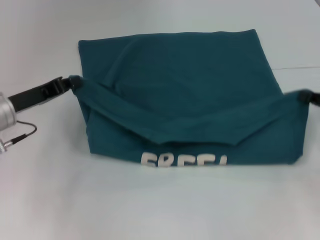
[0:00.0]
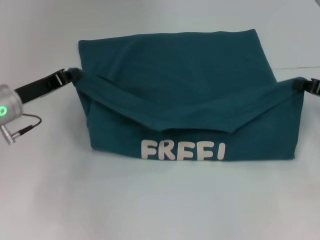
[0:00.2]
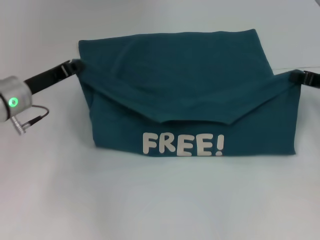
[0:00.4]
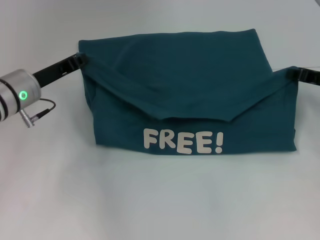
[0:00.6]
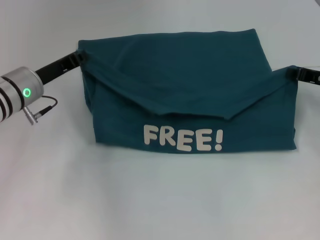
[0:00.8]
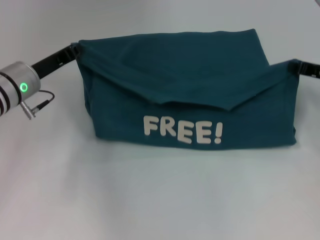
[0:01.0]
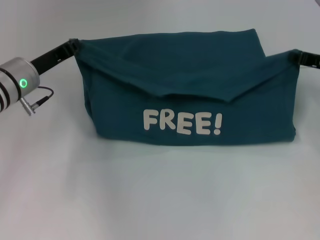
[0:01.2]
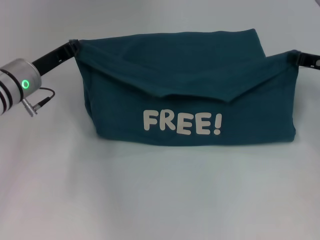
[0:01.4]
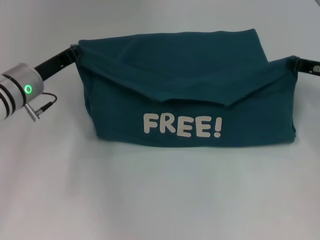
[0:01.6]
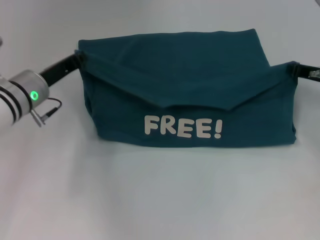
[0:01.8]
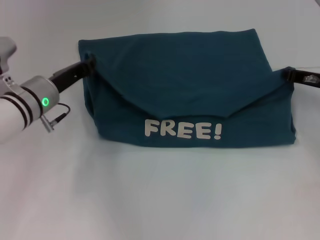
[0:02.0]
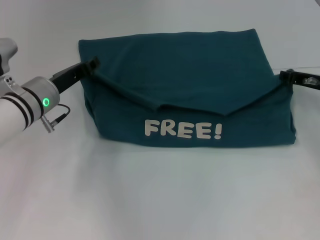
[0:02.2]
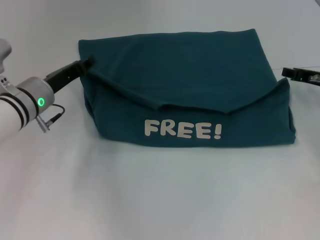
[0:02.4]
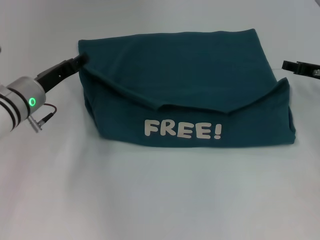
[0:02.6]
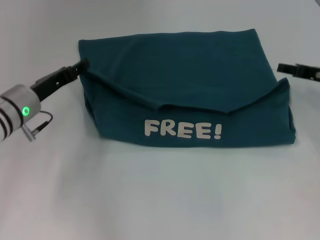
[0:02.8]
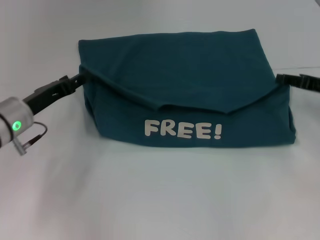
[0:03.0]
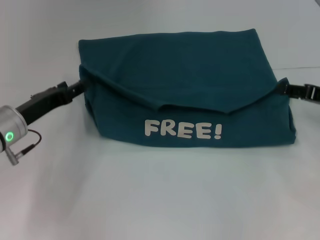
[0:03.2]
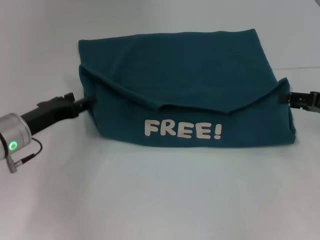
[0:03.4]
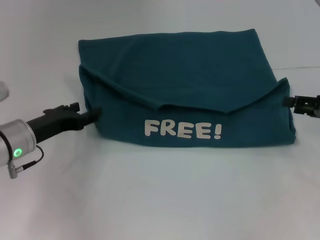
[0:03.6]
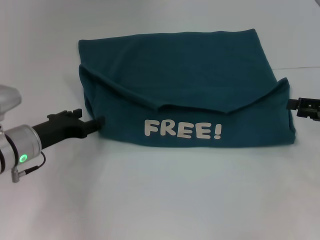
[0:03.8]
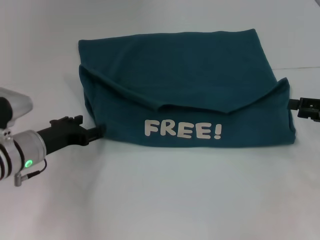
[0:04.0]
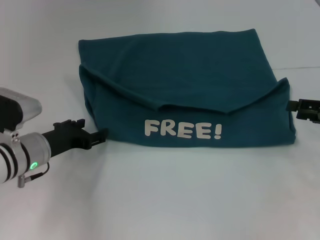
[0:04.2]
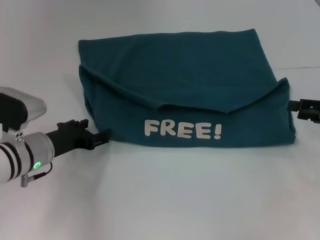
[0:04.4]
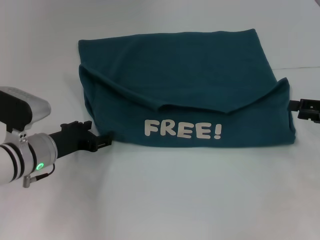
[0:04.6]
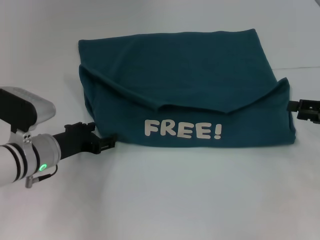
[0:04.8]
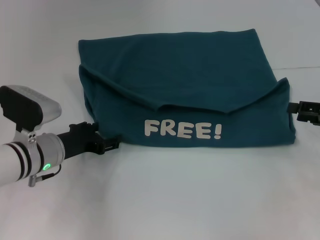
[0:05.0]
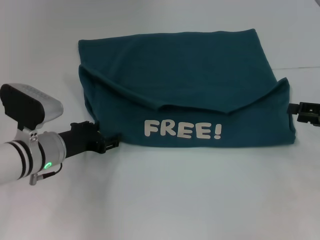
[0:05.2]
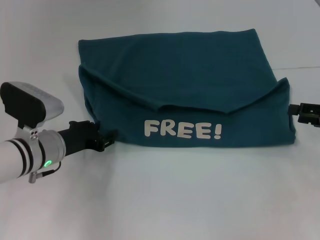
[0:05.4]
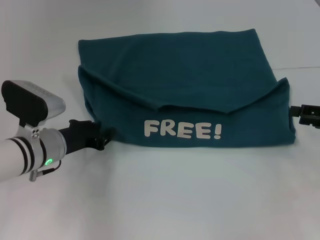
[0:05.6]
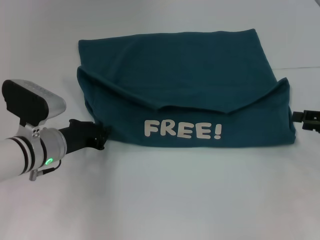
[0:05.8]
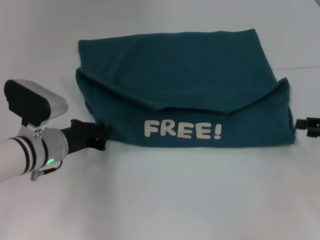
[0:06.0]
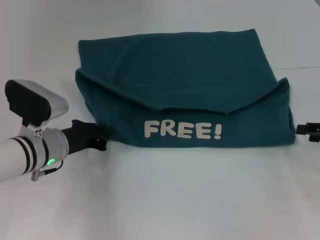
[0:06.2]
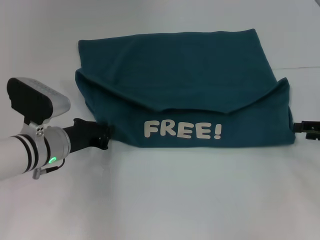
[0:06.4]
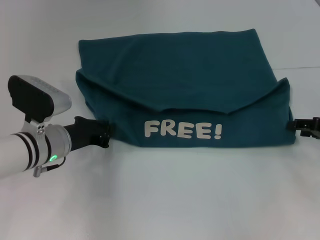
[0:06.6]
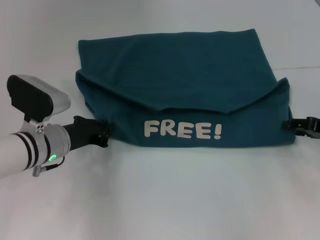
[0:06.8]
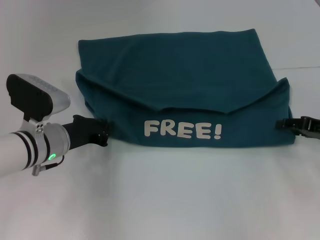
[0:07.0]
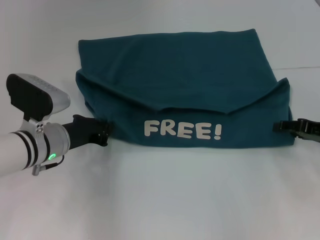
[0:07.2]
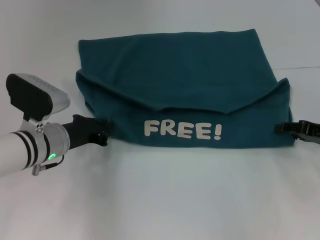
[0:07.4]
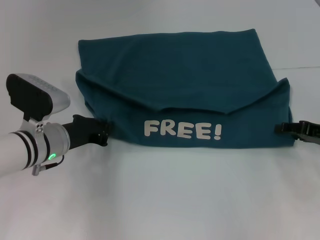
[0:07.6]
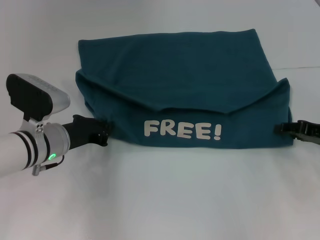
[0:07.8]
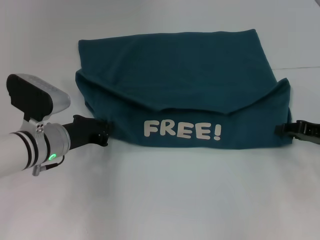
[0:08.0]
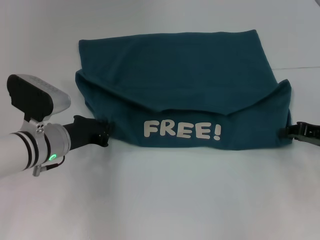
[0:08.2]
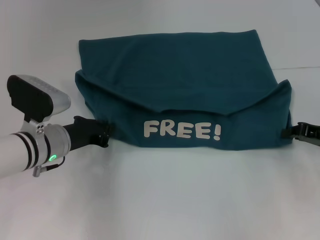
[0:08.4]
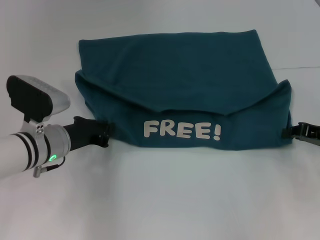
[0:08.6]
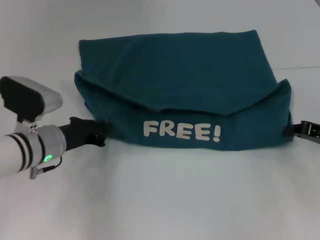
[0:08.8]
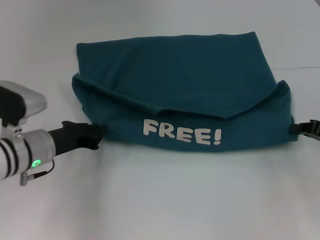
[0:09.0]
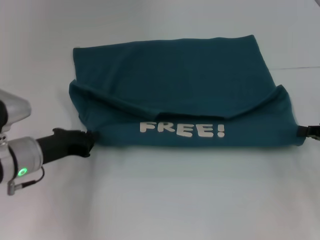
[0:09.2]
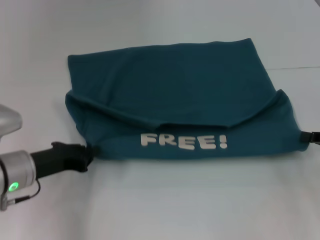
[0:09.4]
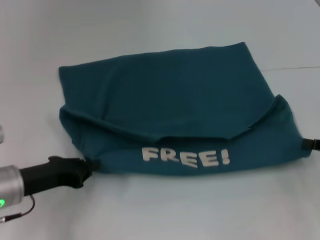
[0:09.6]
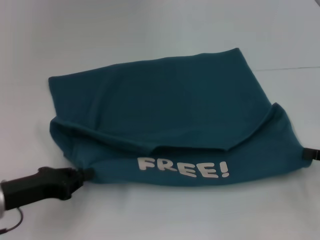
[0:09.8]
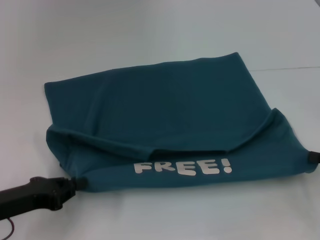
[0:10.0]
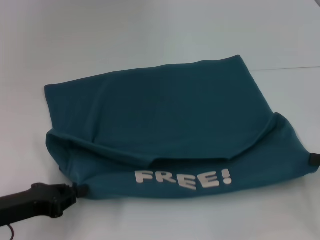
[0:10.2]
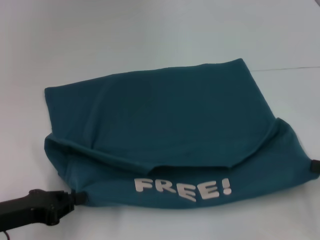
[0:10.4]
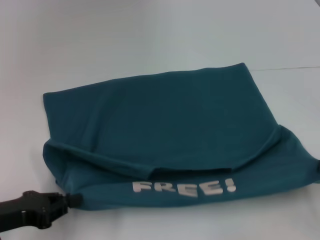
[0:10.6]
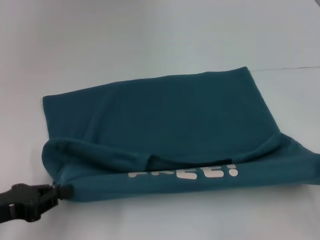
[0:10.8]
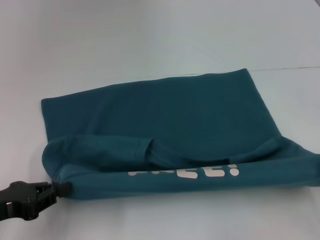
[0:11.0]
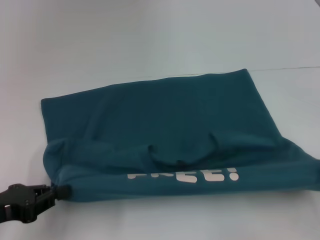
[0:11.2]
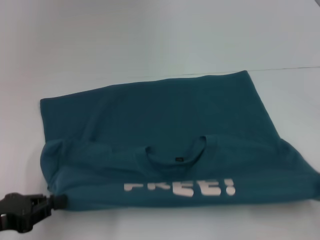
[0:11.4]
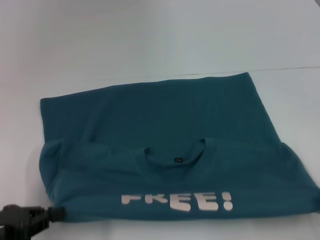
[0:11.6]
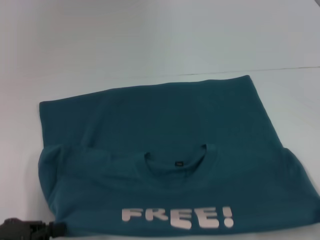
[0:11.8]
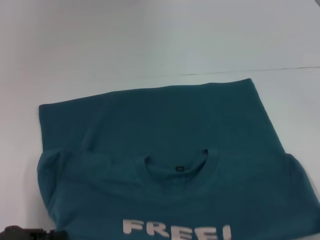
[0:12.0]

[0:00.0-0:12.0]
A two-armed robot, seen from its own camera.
Step, 0:00.0 to 0:02.6: Fold the clothes to the left.
Step, 0:00.0 to 0:02.6: Fold the clothes to the right.
Step, 0:02.8 to 0:10.0: Pull the clothes with your left hand.
Step, 0:02.8 to 0:10.0: Pull the clothes with your right hand.
0:00.0 to 0:01.6: The left gripper changes place by approximately 5 cm; the right gripper goes about 10 cm forward.
0:01.6 to 0:03.0: The right gripper opens. Meanwhile the left gripper moves roughly 5 cm, and opens.
0:03.0 to 0:04.4: The right gripper is displaced backward by approximately 5 cm.
0:04.4 to 0:06.0: The left gripper closes up.
0:06.0 to 0:07.6: The right gripper changes place by roughly 5 cm.
0:07.6 to 0:09.0: The right gripper closes.
0:09.0 to 0:10.4: The right gripper is displaced backward by roughly 10 cm, while the left gripper moves backward and to the left, some 15 cm.
0:10.4 to 0:12.0: The right gripper heads backward, covering approximately 5 cm; the left gripper moves some 5 cm.

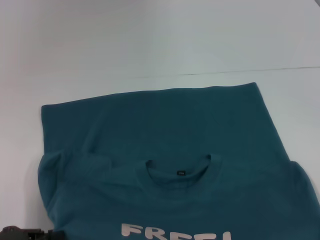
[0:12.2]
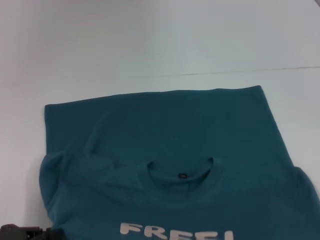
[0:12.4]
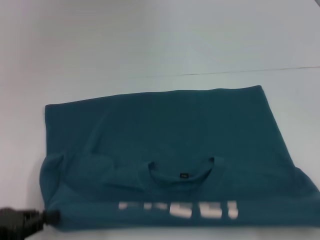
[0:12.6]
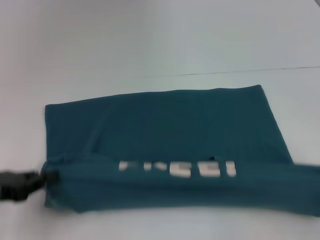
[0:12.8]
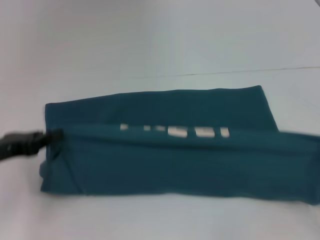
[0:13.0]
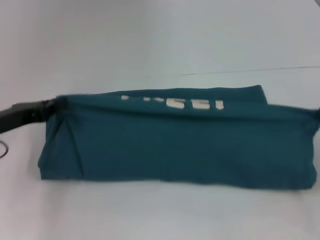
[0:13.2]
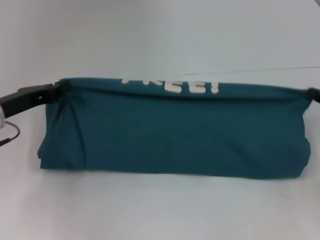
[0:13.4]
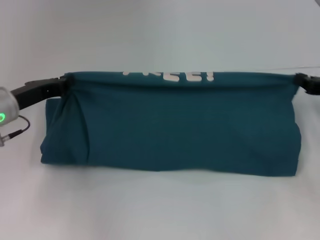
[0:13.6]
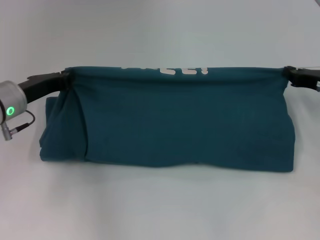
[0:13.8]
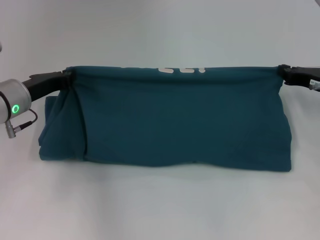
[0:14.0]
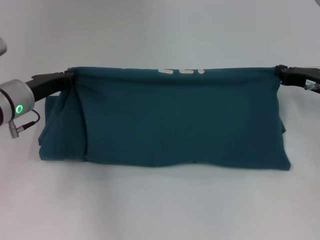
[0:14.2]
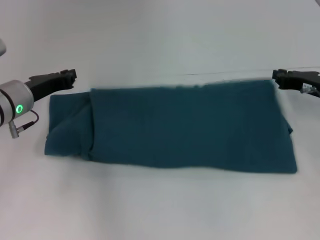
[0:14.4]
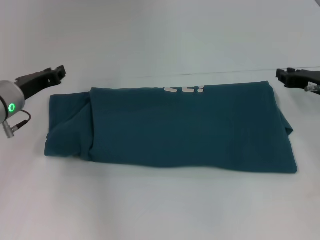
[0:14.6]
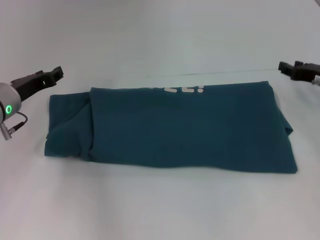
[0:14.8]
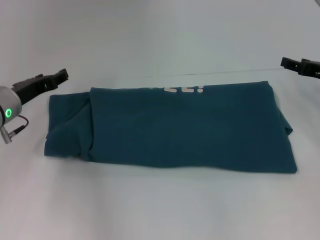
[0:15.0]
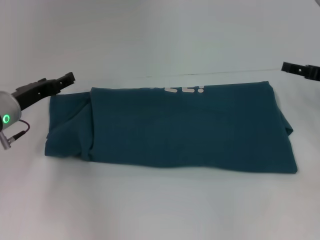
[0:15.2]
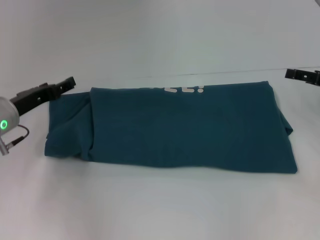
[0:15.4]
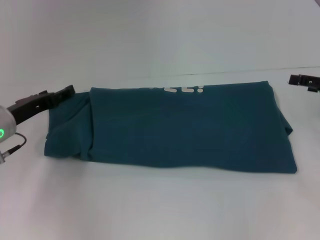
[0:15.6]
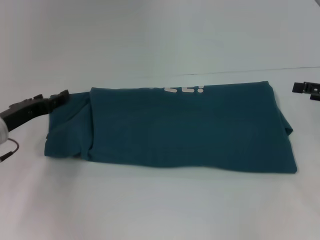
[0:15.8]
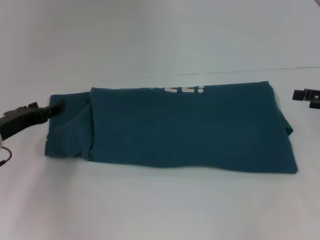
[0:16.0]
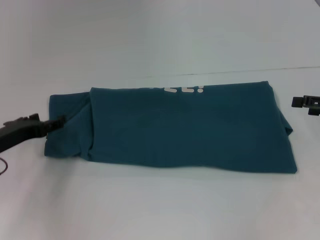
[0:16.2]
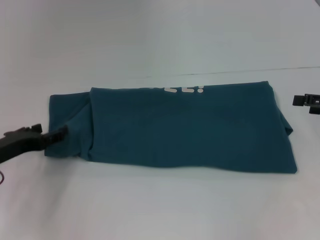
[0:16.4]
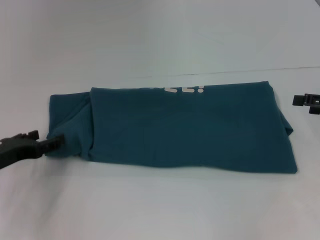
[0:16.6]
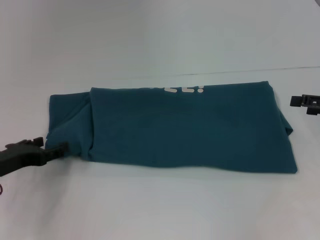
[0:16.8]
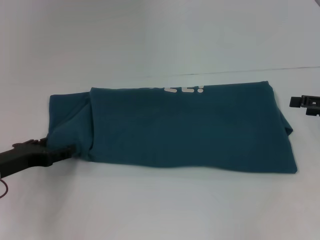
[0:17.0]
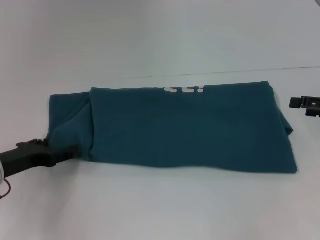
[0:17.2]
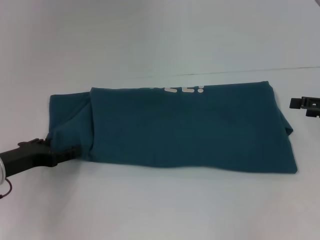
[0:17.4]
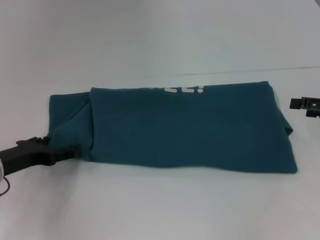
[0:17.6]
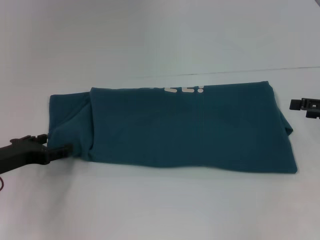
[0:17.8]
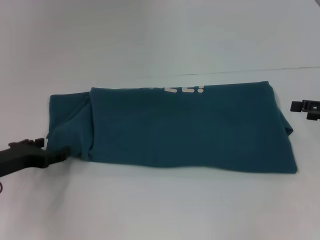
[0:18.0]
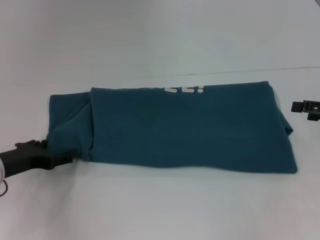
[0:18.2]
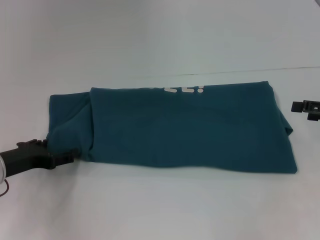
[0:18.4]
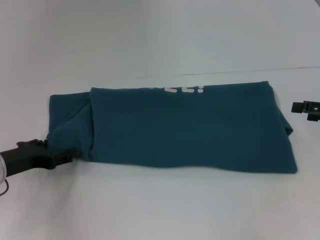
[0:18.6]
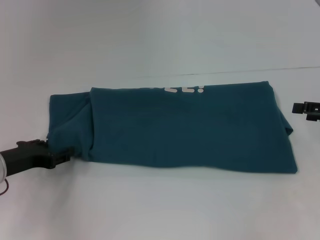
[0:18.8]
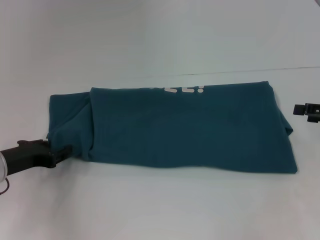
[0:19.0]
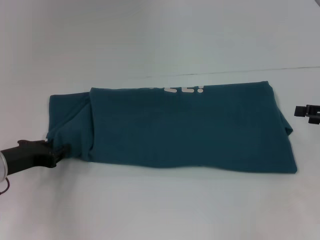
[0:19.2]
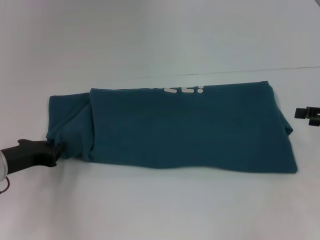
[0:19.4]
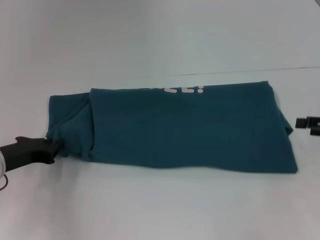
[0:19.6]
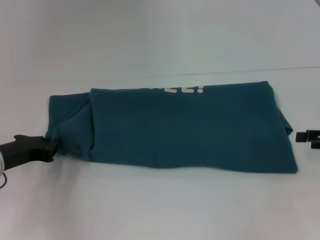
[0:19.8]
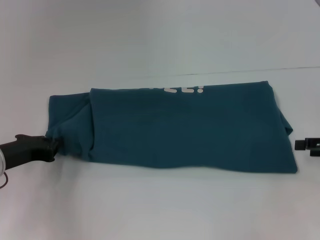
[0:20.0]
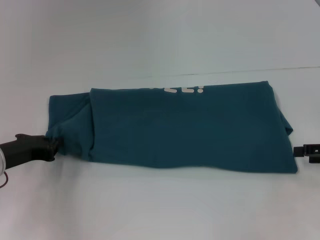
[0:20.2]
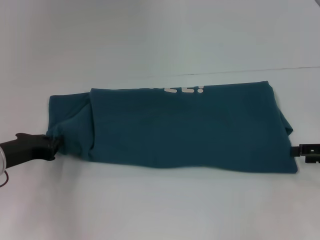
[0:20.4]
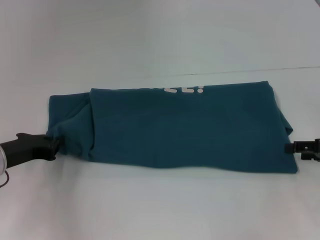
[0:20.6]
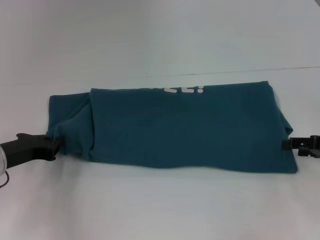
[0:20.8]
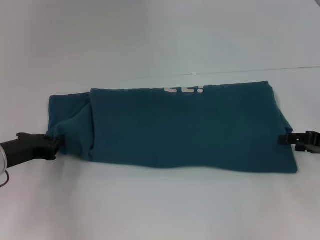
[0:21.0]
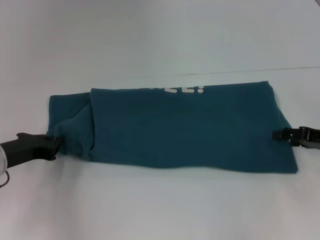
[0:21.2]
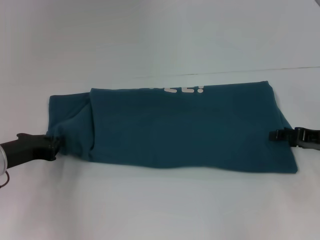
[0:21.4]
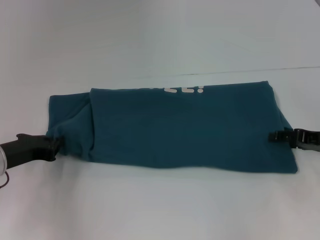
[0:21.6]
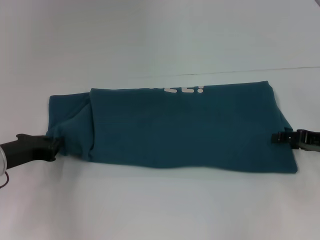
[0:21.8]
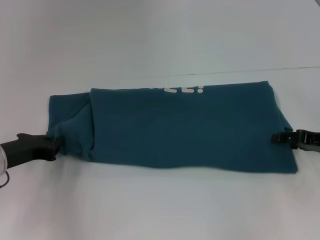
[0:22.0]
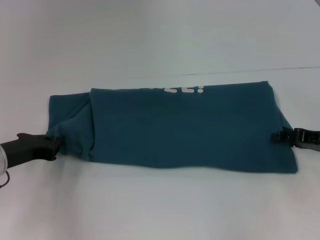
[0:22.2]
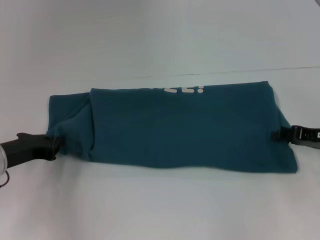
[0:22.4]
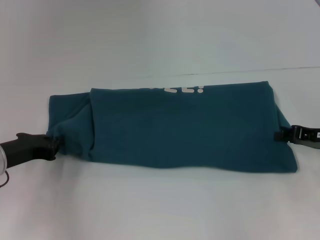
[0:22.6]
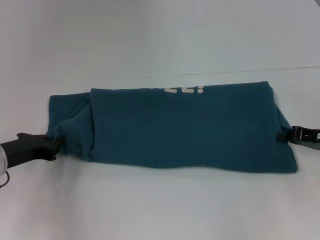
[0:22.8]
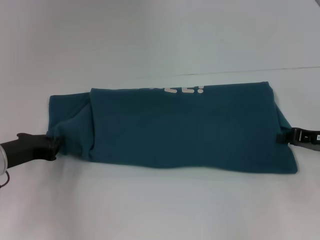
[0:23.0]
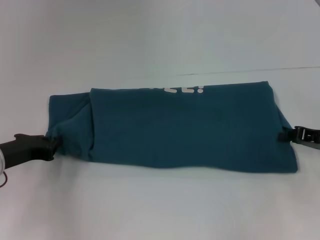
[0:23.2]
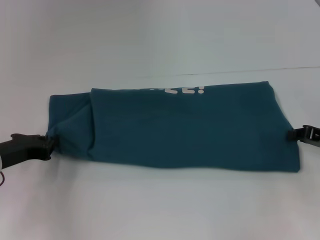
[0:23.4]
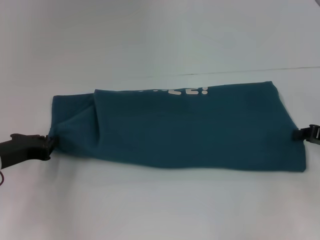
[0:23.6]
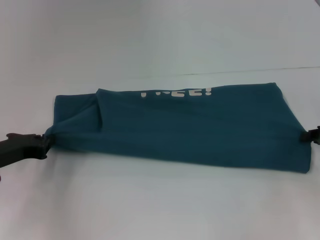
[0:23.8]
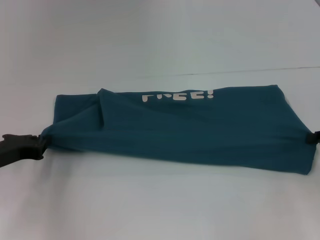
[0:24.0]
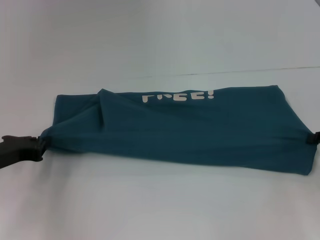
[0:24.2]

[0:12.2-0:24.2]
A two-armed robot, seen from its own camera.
Step, 0:12.2 to 0:14.6: Fold the clothes to the left.
Step, 0:12.2 to 0:14.6: Fold the clothes to the right.
0:12.2 to 0:13.8: The two grippers go some 20 cm forward.
0:13.8 to 0:15.2: The left gripper opens its fingers; the right gripper opens its fingers.
0:15.2 to 0:16.6: The left gripper goes approximately 10 cm backward. The right gripper moves backward, some 5 cm.
0:16.6 to 0:18.2: The grippers stay close to where they were, moving slightly.
0:18.2 to 0:19.8: The left gripper closes.
0:19.8 to 0:21.2: The right gripper changes place by roughly 5 cm.
0:21.2 to 0:22.6: Both grippers stay about where they are.
0:22.6 to 0:24.2: The right gripper shifts by roughly 5 cm, and closes up.